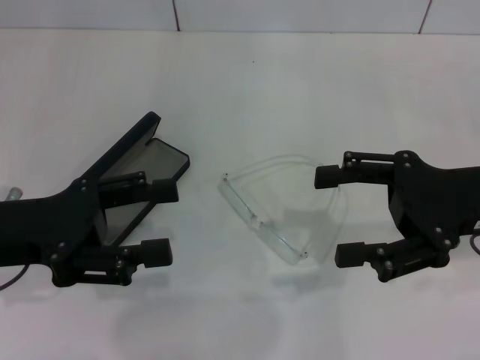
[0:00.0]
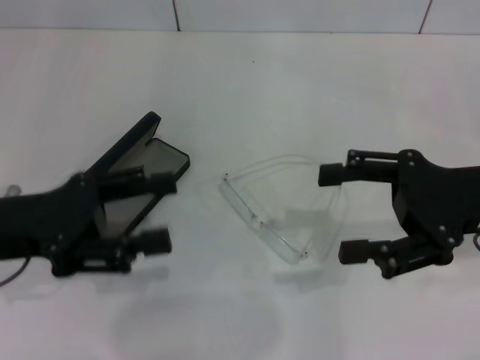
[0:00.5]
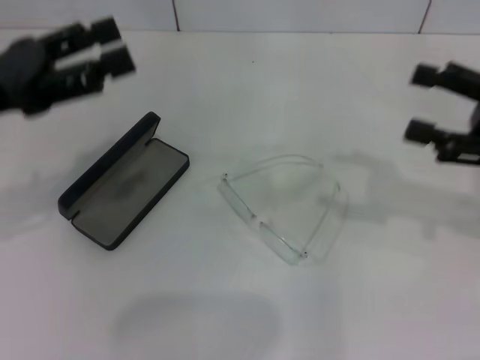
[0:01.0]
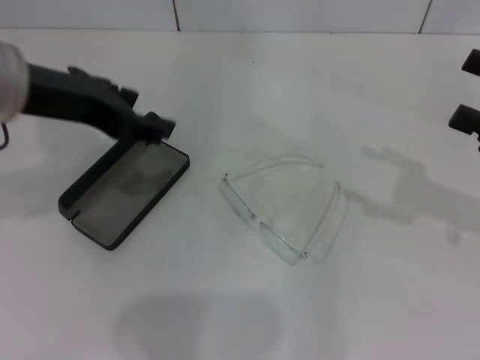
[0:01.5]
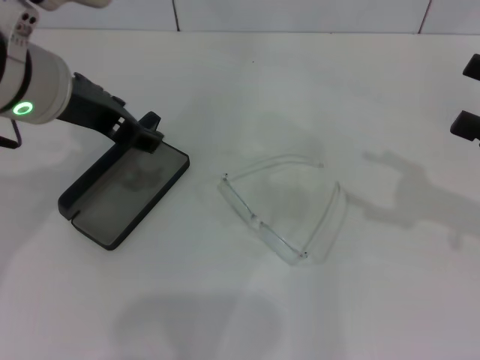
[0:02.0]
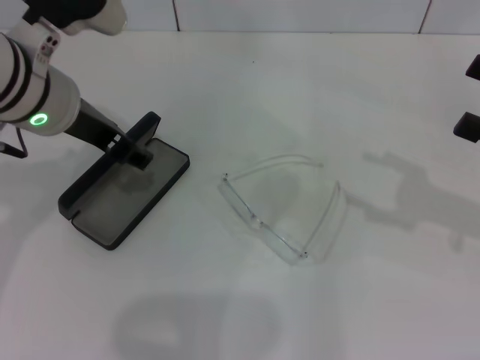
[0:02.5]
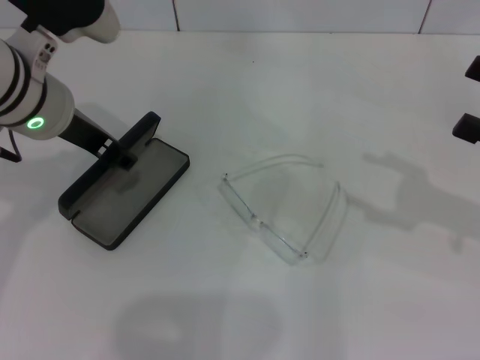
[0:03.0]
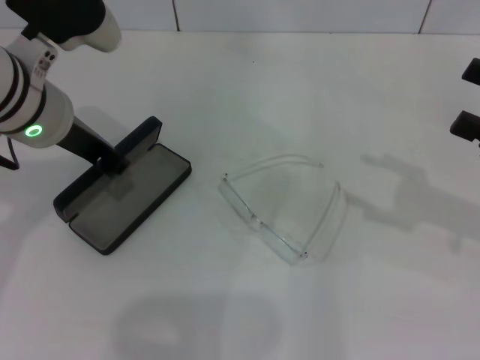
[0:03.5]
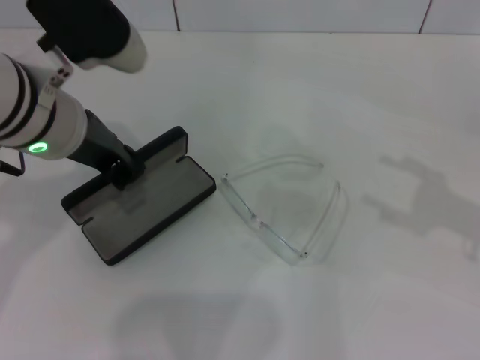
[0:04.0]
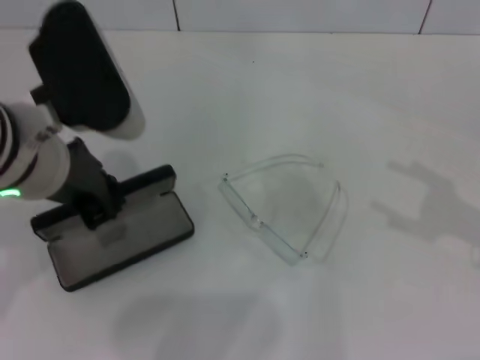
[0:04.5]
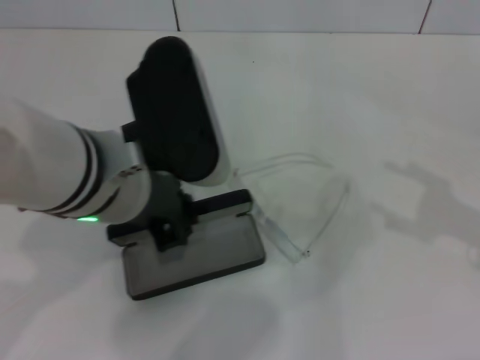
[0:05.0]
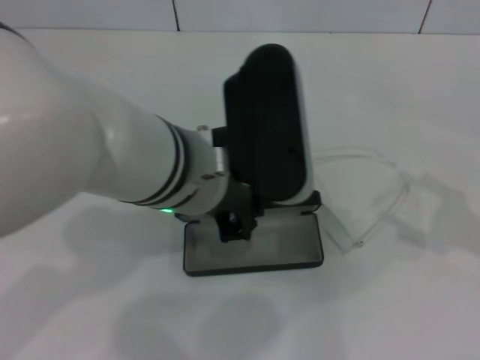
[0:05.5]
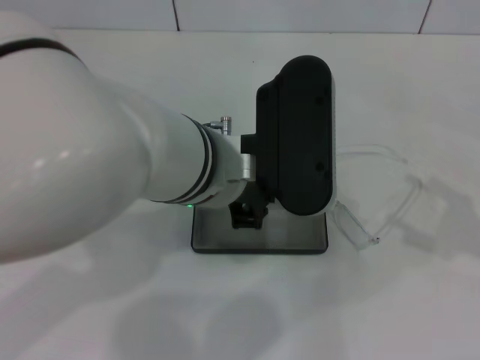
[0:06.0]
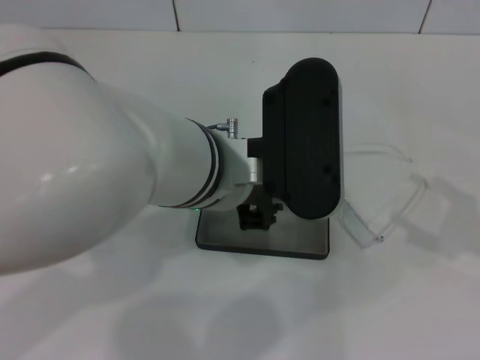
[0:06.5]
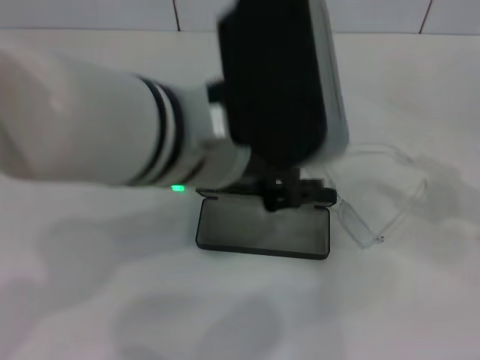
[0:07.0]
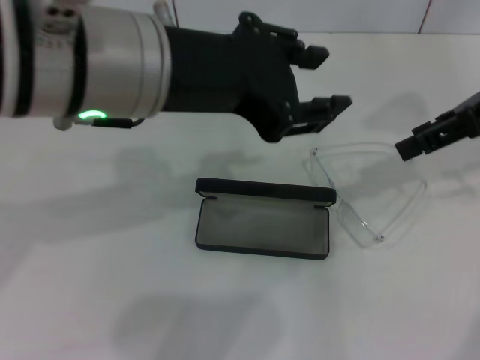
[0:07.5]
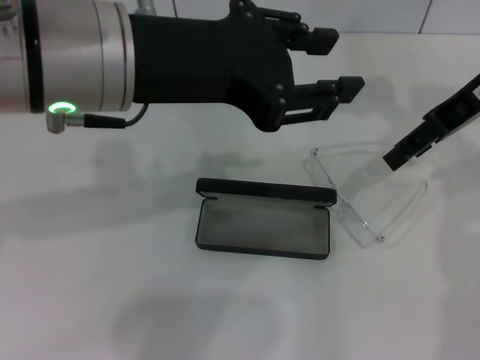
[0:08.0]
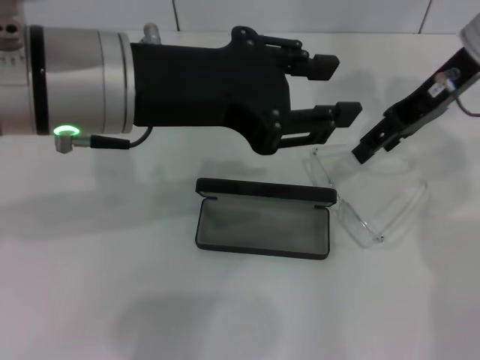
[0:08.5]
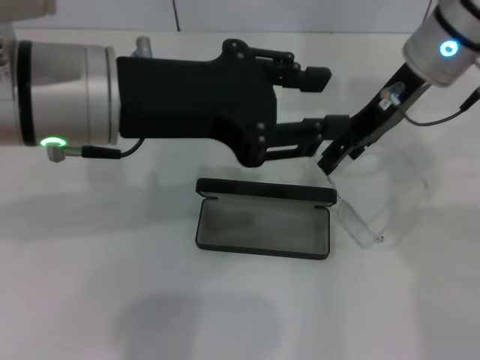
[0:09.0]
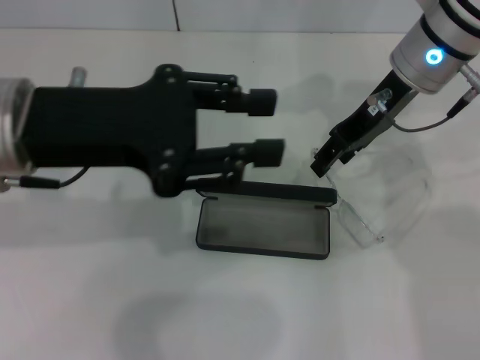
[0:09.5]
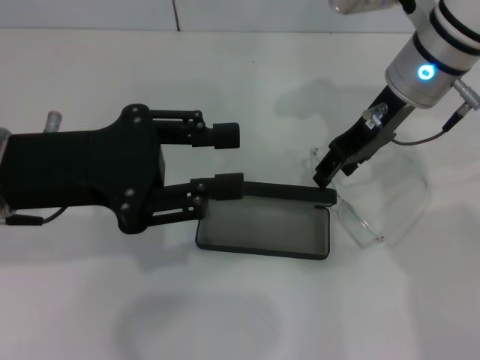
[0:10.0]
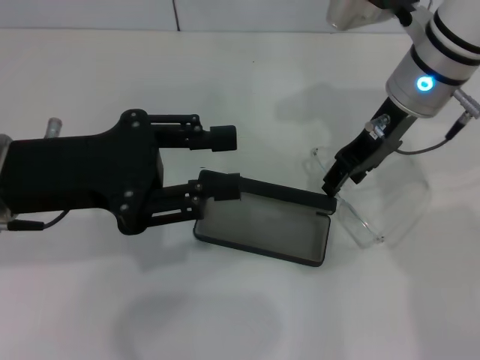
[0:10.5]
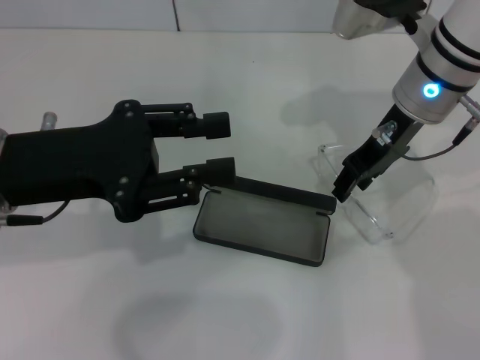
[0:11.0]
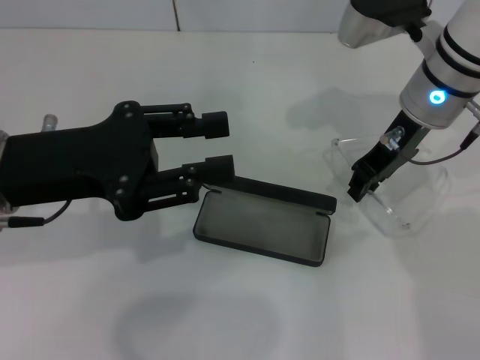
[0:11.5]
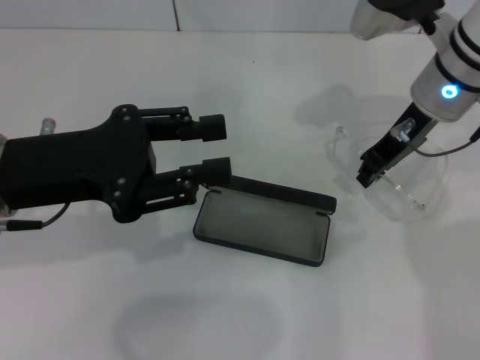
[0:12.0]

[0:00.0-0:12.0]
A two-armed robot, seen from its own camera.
Step, 0:00.0 to 0:03.0: Grab the glasses case with your left hand.
Step, 0:03.5 to 0:06.5: Place the glasses case in the center of the table with your left hand.
Step, 0:07.0 to 0:11.5: Grab the eyeglass frame with your right hand.
0:00.0 to 0:02.0: The left gripper heads to the right, upward and forward, covering approximately 15 cm. The right gripper moves to the right, about 10 cm.
0:02.0 to 0:04.0: The left gripper closes.
0:04.0 to 0:06.0: The left gripper travels to the right by some 10 cm.
0:06.0 to 0:08.0: The left gripper heads upward and to the left, covering some 10 cm, and opens its fingers. The right gripper travels forward, to the left and upward by approximately 25 cm.
0:08.0 to 0:10.0: Both grippers travel together to the left and downward, about 10 cm.
0:10.0 to 0:12.0: The right gripper closes its fingers.

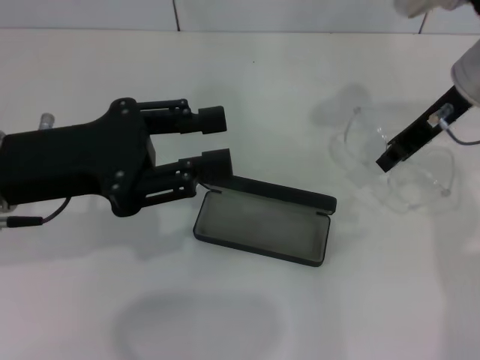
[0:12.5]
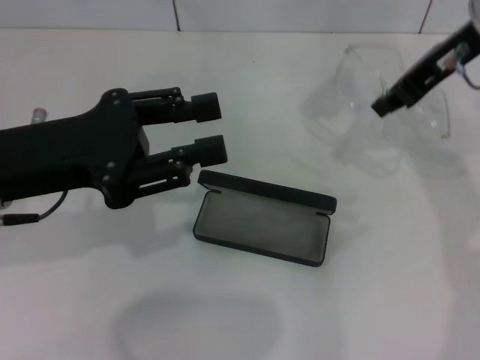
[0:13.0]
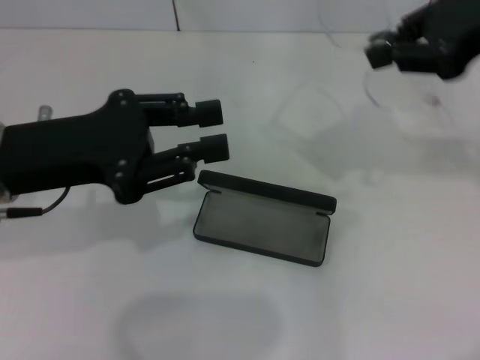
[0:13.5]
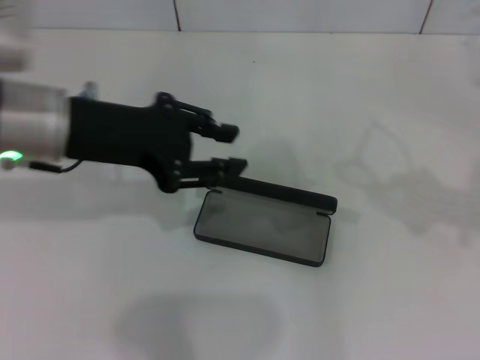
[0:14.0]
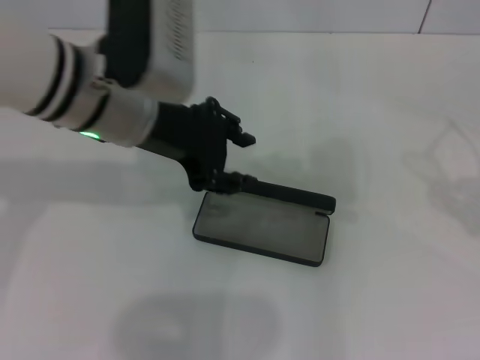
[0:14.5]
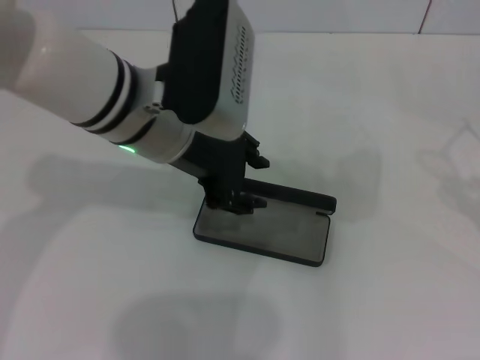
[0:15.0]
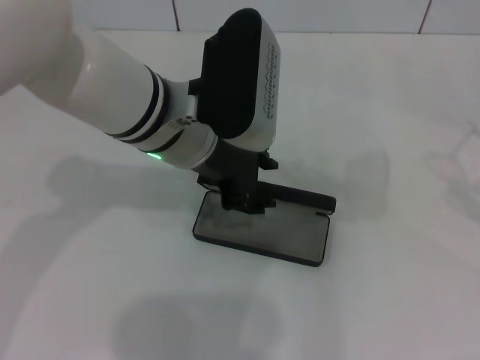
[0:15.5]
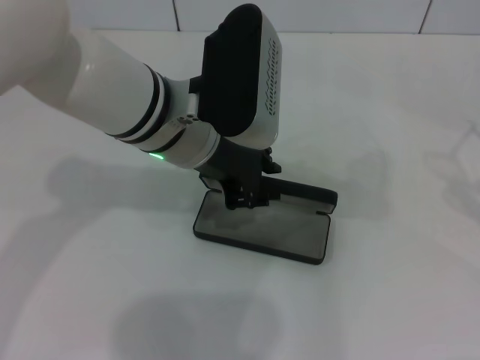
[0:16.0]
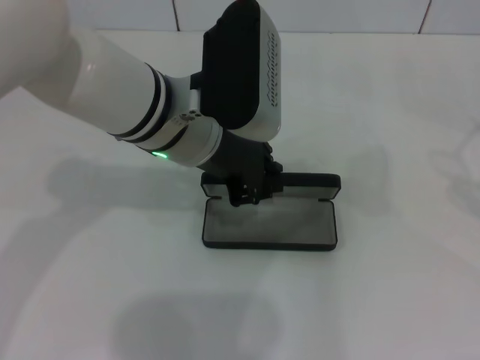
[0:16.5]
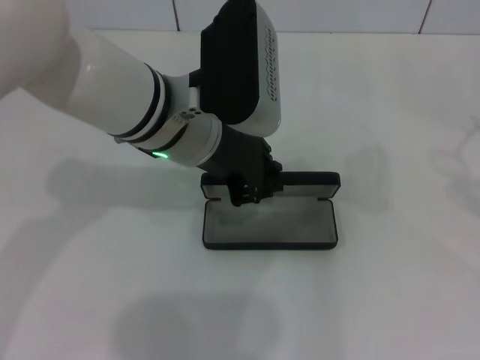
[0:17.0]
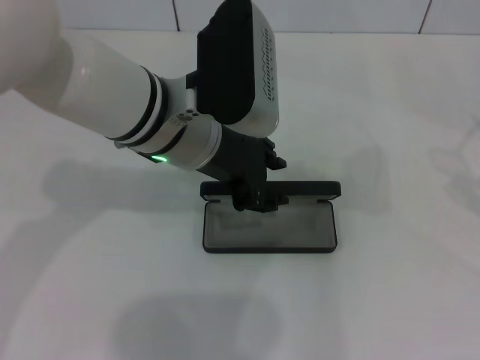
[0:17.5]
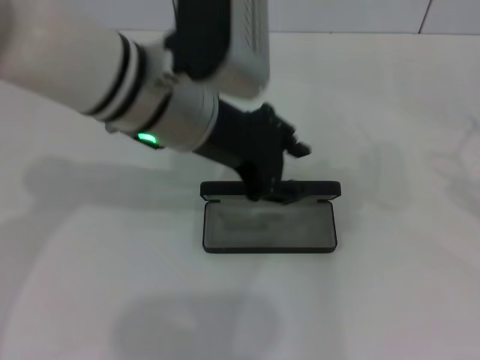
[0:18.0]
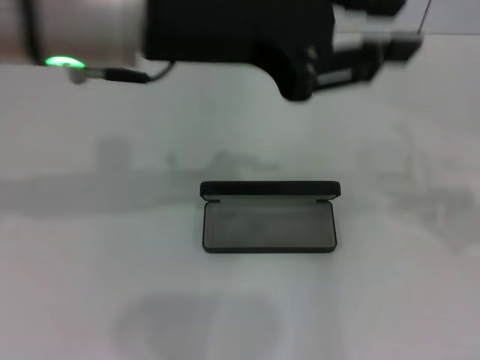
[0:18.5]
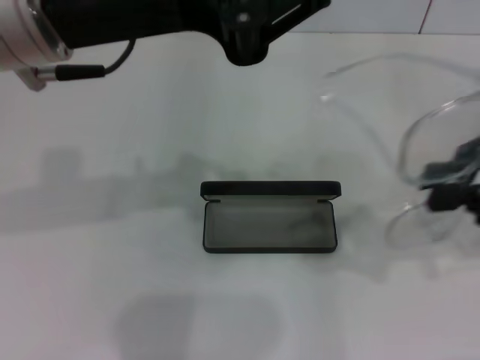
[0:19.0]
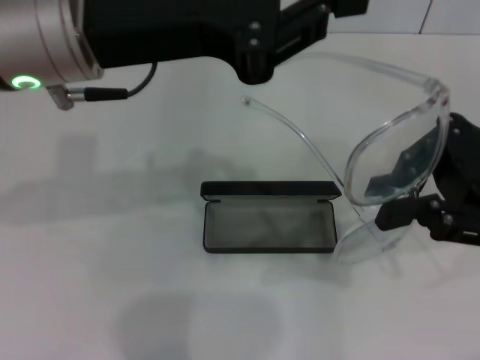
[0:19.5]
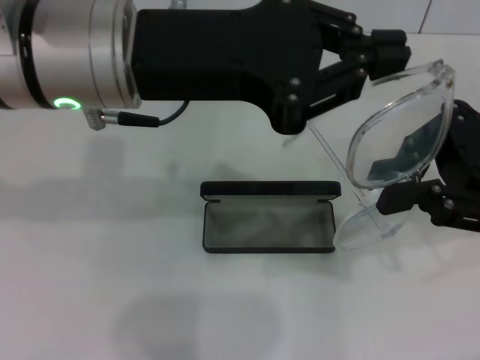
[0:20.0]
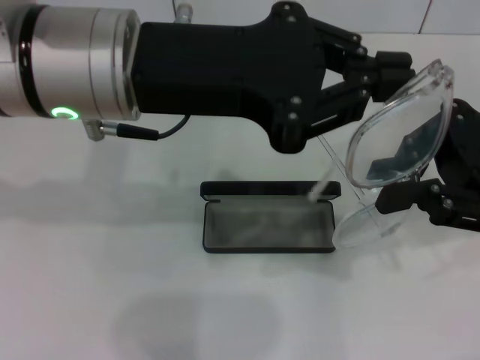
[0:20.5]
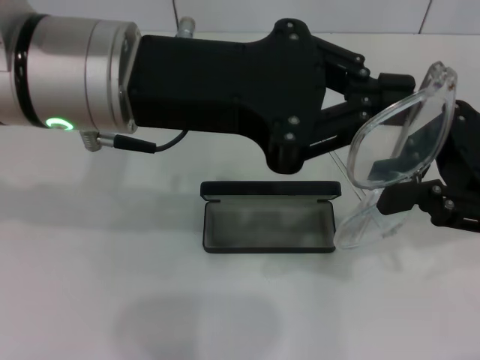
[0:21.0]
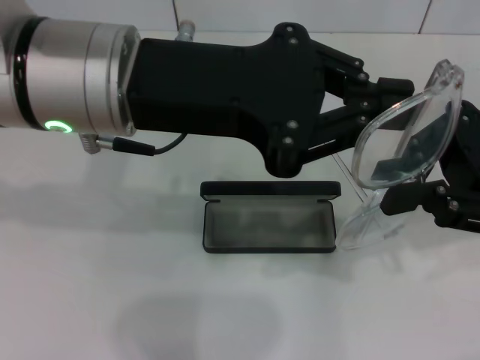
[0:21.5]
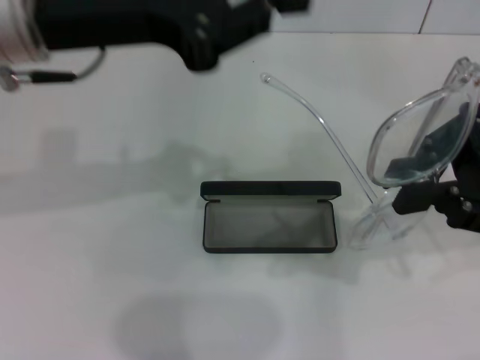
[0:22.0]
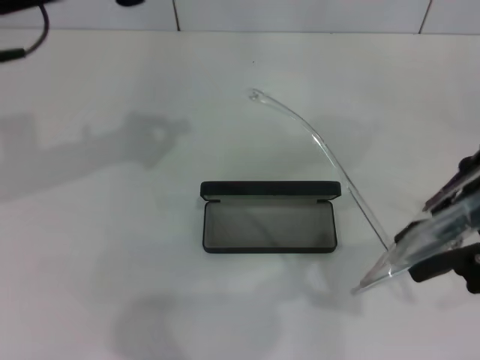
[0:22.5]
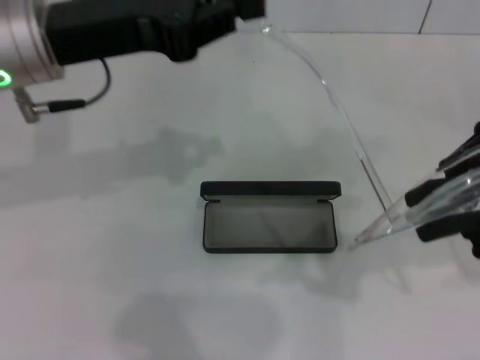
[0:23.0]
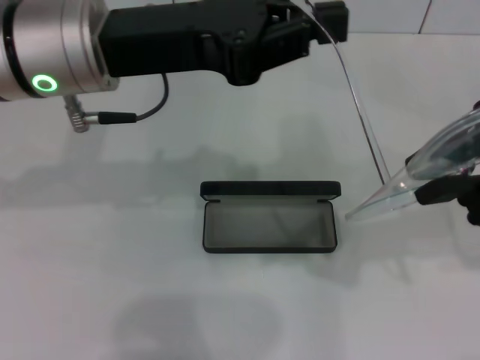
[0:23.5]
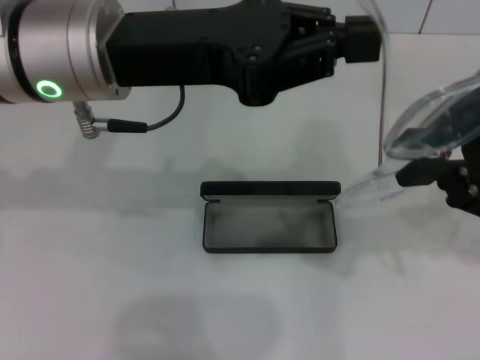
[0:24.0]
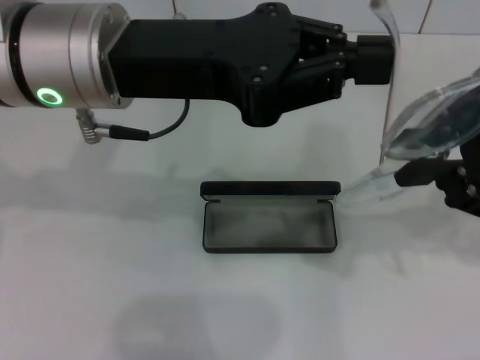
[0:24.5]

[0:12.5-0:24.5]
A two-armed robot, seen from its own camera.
0:12.5 to 0:14.5: The left gripper heads to the right and forward, covering about 10 cm; the right gripper shifts roughly 30 cm to the right and backward.
0:14.5 to 0:16.5: The left gripper travels to the right by approximately 5 cm, and closes its fingers.
0:16.5 to 0:18.5: The left gripper heads upward and backward, covering some 15 cm.
0:18.5 to 0:20.5: The left gripper closes its fingers. The right gripper heads to the left and forward, covering some 15 cm.
0:20.5 to 0:22.5: The left gripper moves to the left, approximately 10 cm.
0:22.5 to 0:24.5: The left gripper shifts some 10 cm to the right.

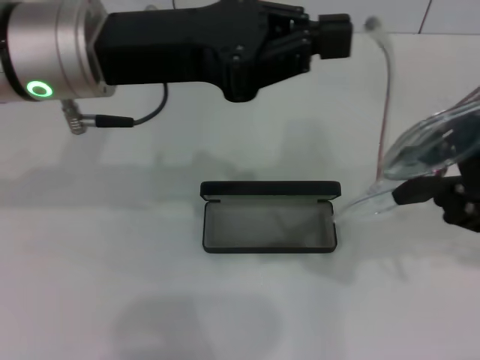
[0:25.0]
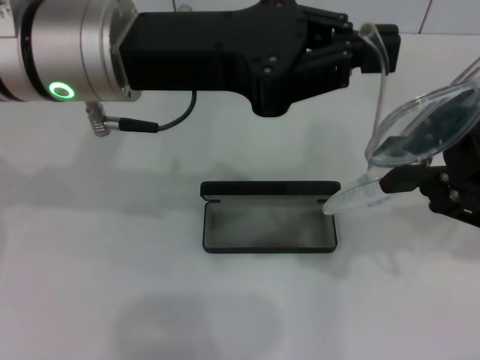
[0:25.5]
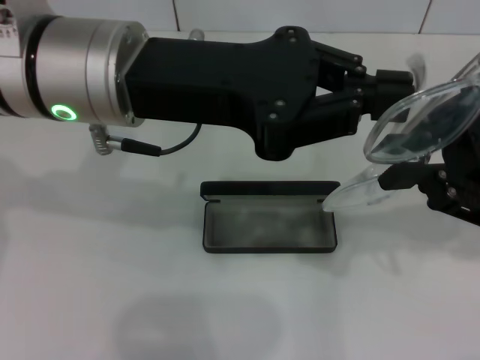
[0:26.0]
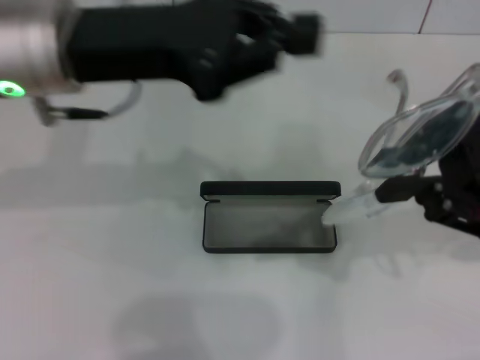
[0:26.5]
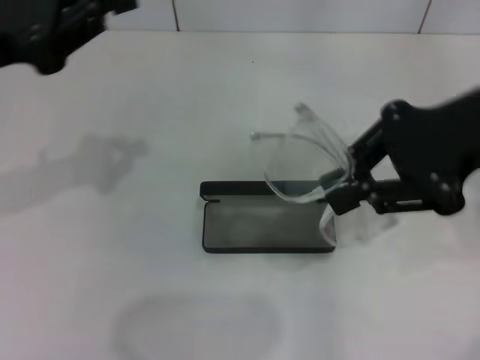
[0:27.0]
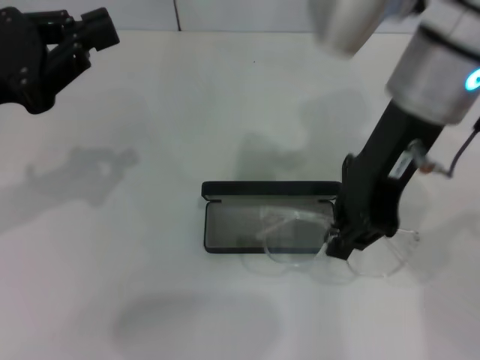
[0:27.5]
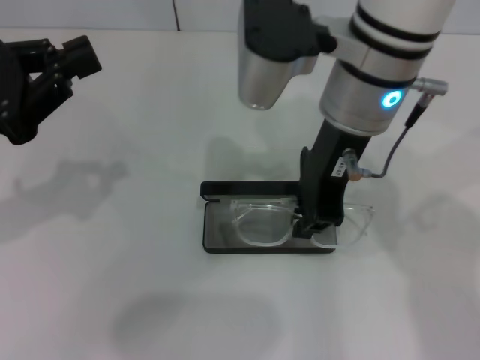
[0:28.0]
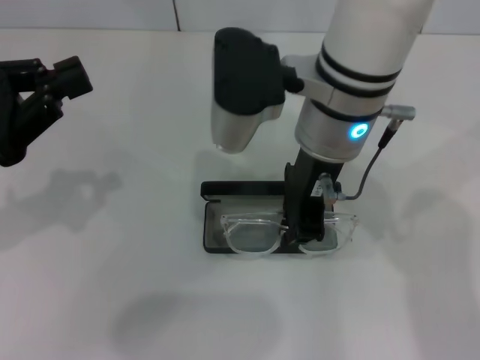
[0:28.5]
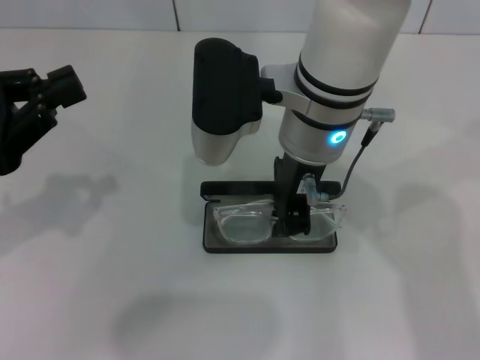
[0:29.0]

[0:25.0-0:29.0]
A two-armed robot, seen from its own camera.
0:25.0 to 0:27.0: The right gripper heads upward, covering some 5 cm, while the left gripper goes about 10 cm to the left.
0:27.0 to 0:29.0: The left gripper travels downward by some 5 cm. The right gripper is displaced to the left by about 20 cm.
